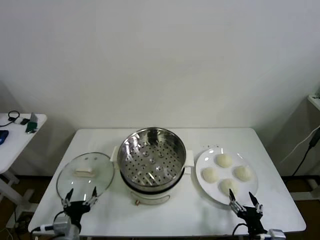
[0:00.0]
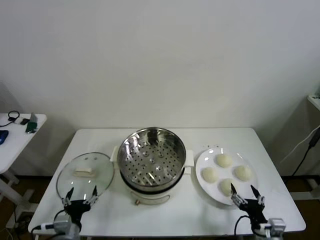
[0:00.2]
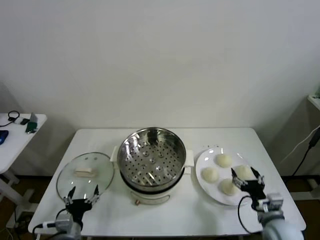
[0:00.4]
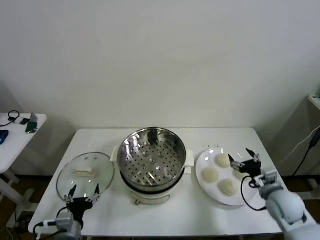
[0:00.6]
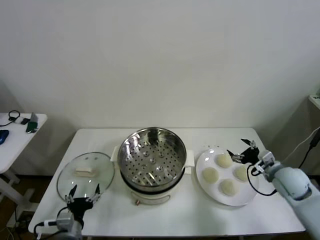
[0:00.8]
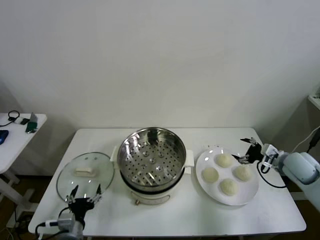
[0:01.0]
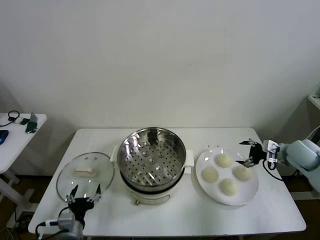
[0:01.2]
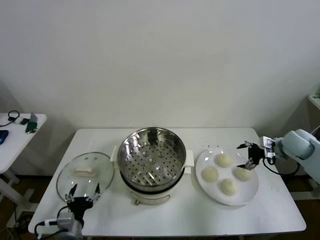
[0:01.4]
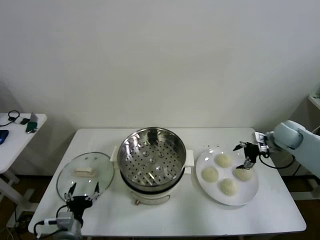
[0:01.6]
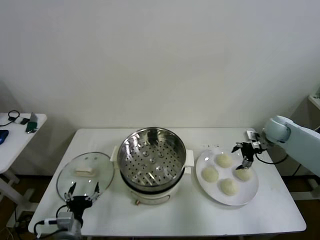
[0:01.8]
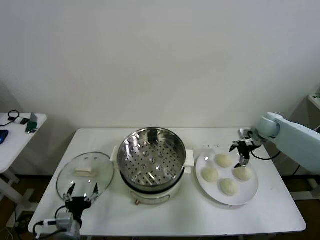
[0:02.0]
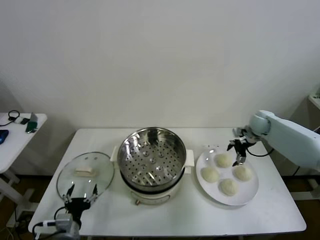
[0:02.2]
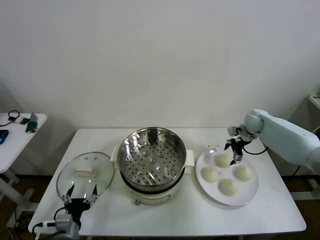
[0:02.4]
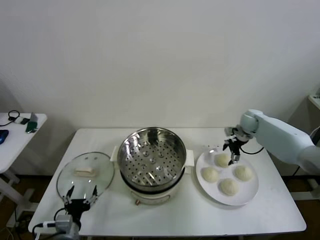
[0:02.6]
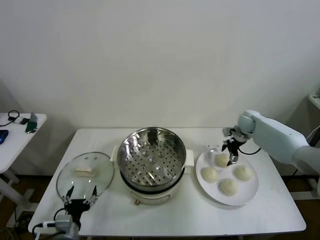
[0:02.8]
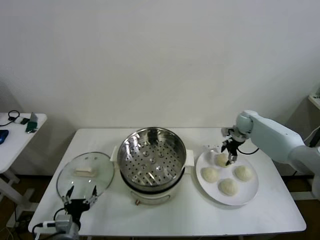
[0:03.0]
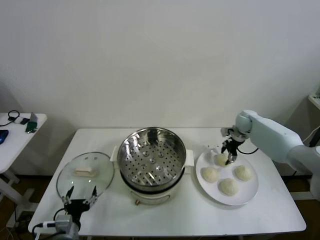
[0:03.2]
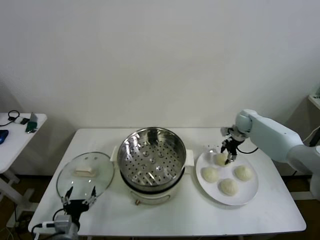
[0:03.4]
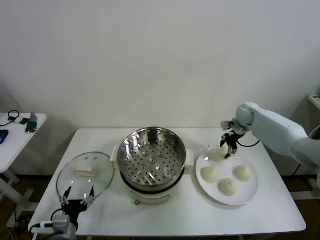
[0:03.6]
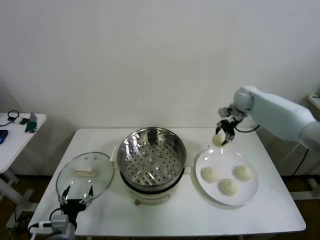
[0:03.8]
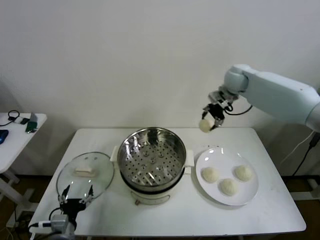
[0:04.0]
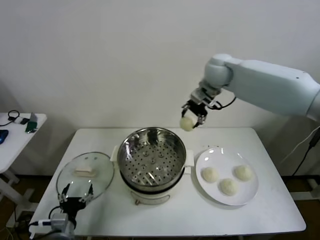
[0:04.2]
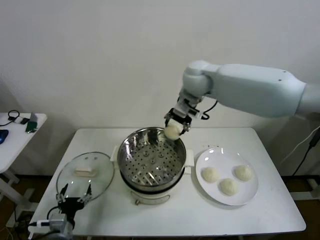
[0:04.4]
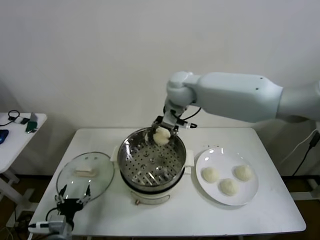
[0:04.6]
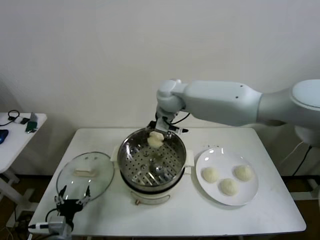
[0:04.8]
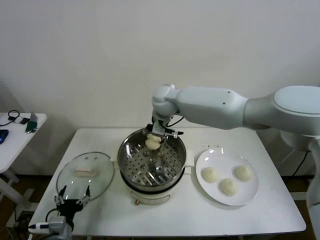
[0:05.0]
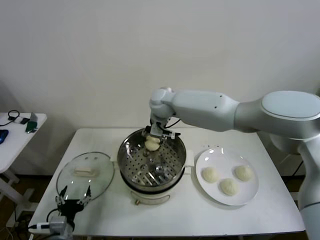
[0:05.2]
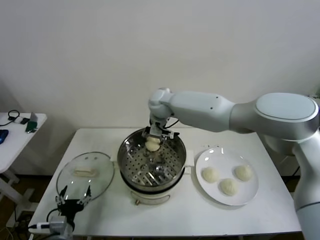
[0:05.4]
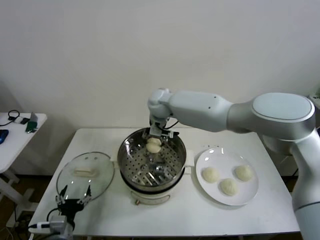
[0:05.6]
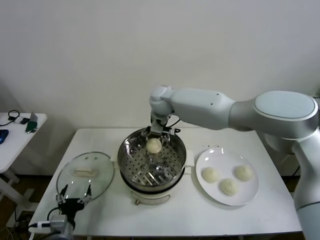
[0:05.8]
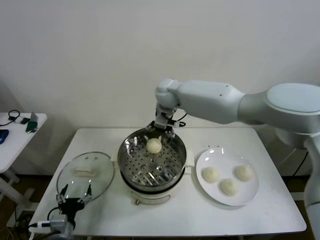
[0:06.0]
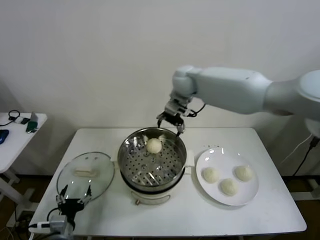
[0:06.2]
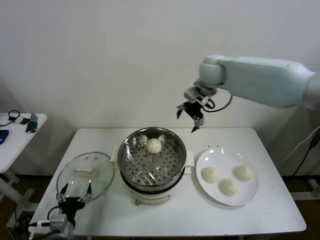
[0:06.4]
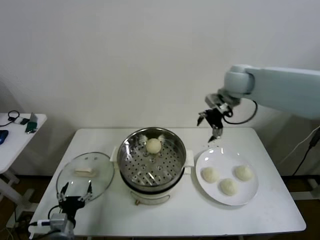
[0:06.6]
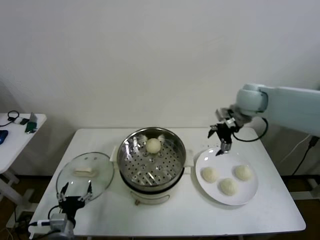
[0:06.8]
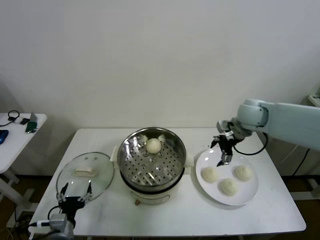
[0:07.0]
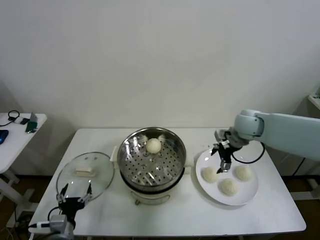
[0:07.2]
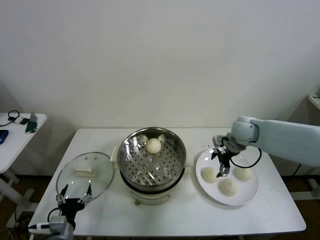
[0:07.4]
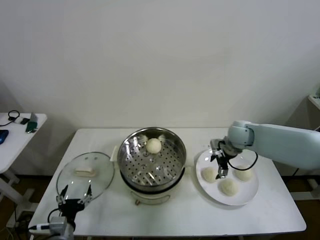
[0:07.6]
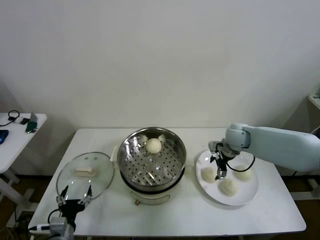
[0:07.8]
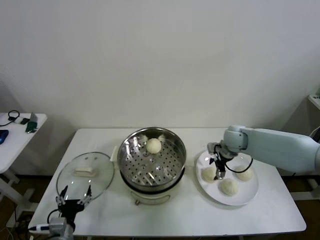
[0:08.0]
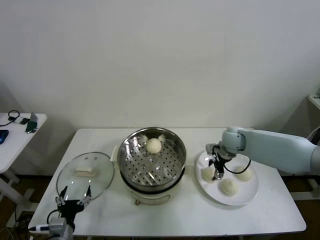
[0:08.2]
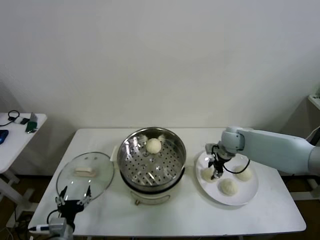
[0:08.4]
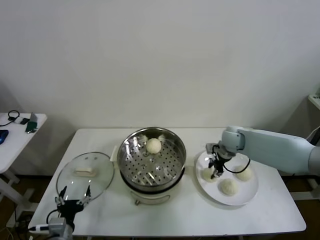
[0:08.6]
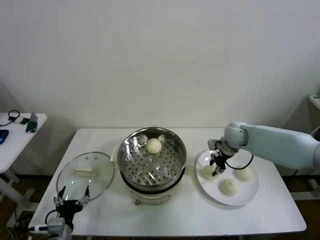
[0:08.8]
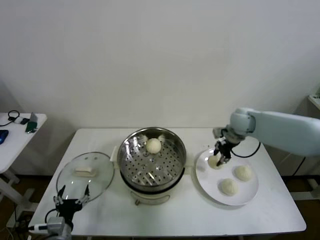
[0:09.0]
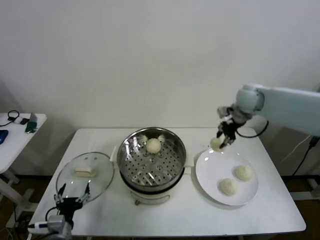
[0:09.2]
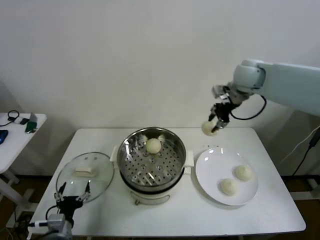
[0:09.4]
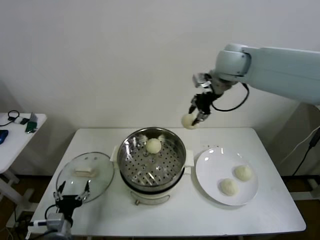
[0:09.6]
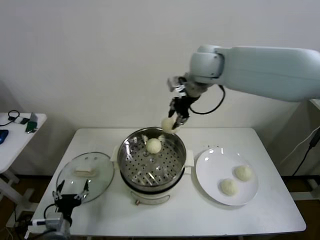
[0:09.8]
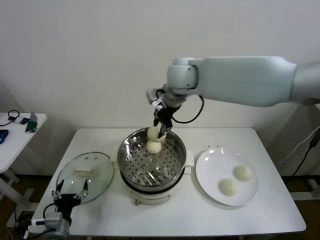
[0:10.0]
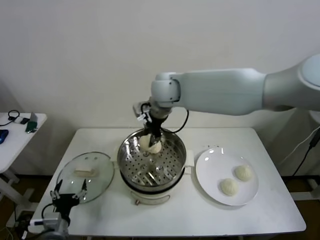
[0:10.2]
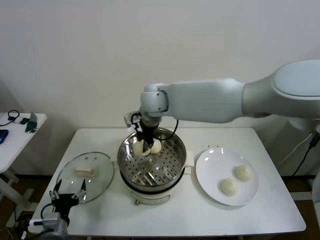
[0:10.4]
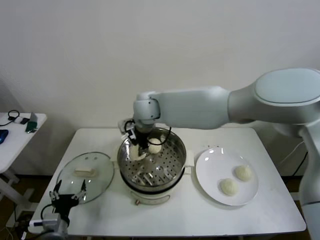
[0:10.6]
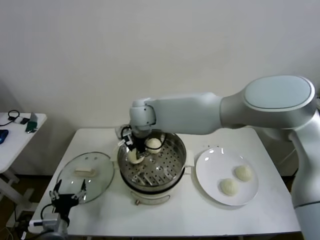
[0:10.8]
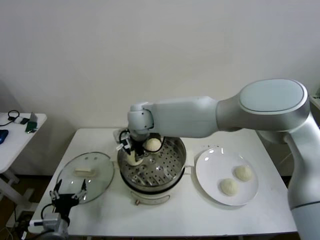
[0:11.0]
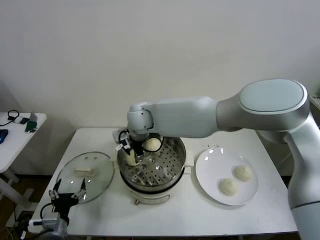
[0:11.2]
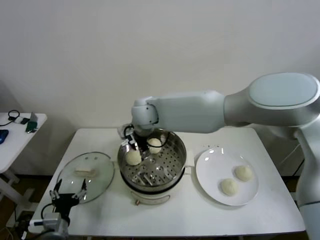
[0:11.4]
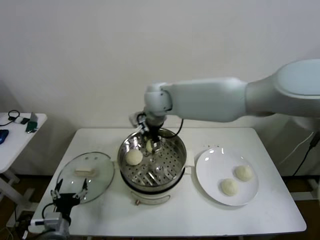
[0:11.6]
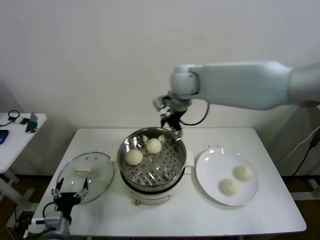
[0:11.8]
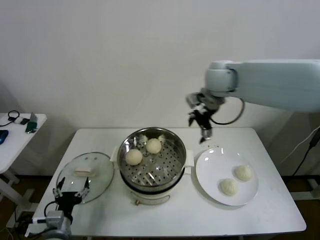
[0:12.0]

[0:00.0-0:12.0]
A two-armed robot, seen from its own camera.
Step, 0:00.0 to 0:03.2: Grasp the baozi in the plate with right gripper.
Step, 0:03.4 to 0:05.6: Place the baozi on the steamer with right gripper.
Step, 0:05.8 to 0:08.4: Grasp the baozi in the plate with right gripper.
Step, 0:08.8 to 0:11.2: Place the baozi on the steamer with right gripper.
0:01.6 to 0:03.0: The right gripper is displaced forward and to the left by about 15 cm.
0:03.0 to 0:04.4: The right gripper moves to the left and upward, approximately 35 cm.
0:04.4 to 0:06.0: The right gripper opens up.
0:06.0 to 0:07.6: The right gripper shifts about 30 cm to the right and downward.
0:07.6 to 0:09.0: The right gripper is displaced upward by approximately 5 cm, and closes.
0:09.0 to 0:10.4: The right gripper travels to the left by some 35 cm.
0:10.4 to 0:12.0: The right gripper moves to the right, roughly 20 cm, and opens its fingers.

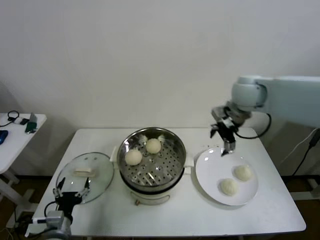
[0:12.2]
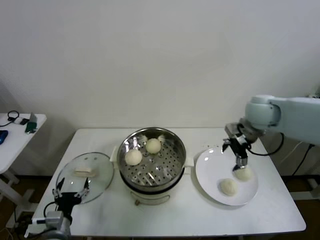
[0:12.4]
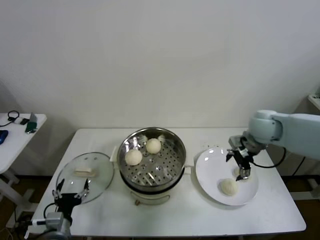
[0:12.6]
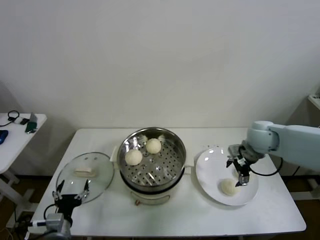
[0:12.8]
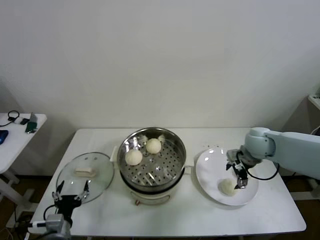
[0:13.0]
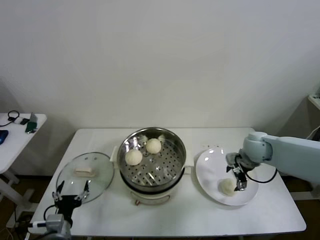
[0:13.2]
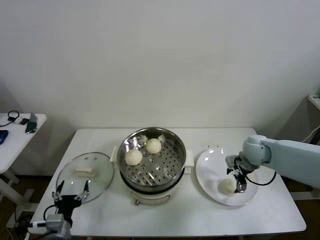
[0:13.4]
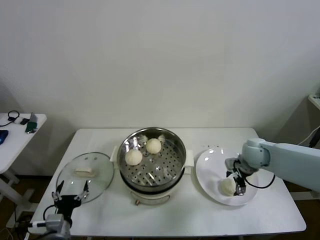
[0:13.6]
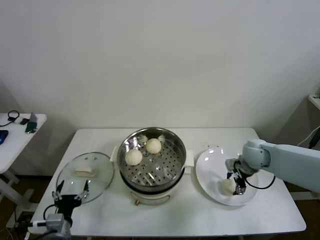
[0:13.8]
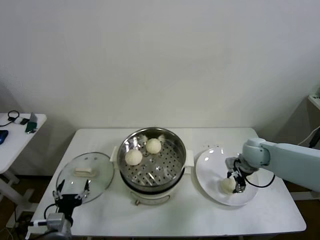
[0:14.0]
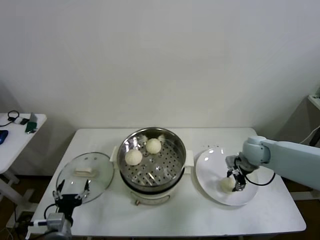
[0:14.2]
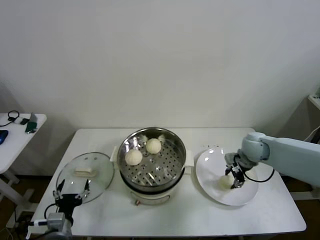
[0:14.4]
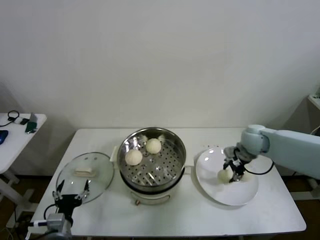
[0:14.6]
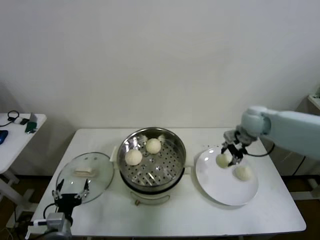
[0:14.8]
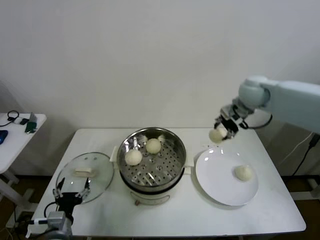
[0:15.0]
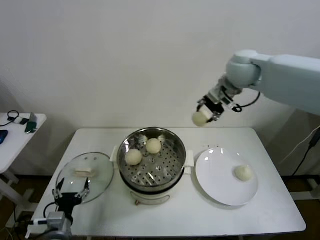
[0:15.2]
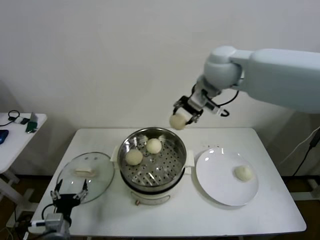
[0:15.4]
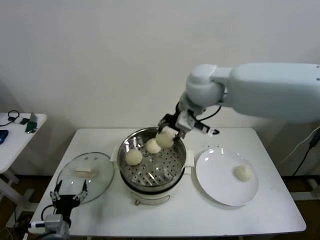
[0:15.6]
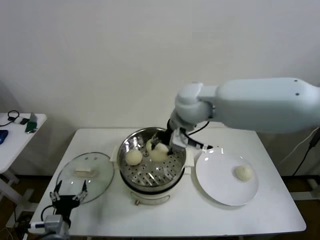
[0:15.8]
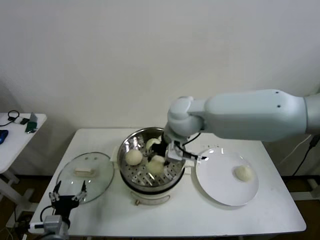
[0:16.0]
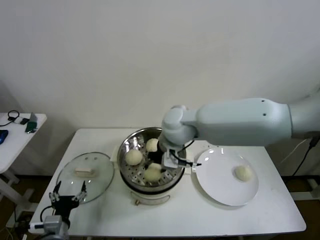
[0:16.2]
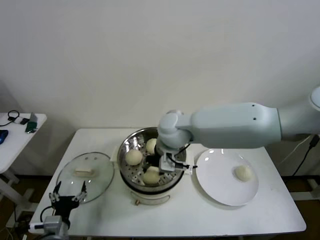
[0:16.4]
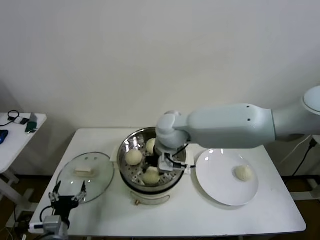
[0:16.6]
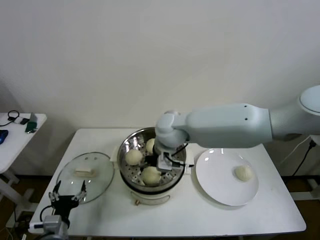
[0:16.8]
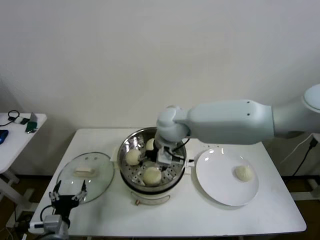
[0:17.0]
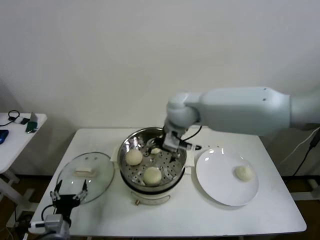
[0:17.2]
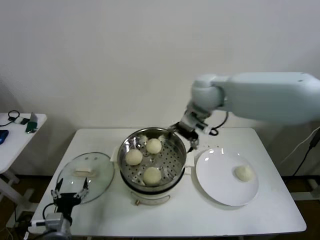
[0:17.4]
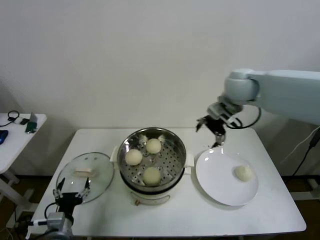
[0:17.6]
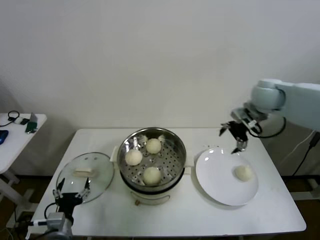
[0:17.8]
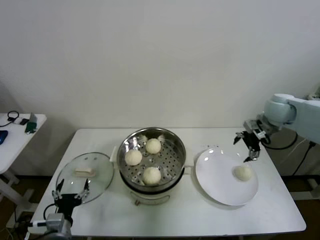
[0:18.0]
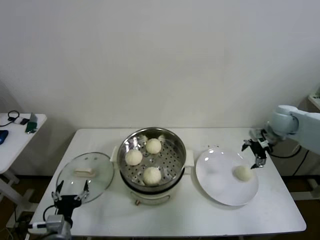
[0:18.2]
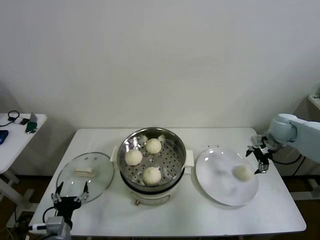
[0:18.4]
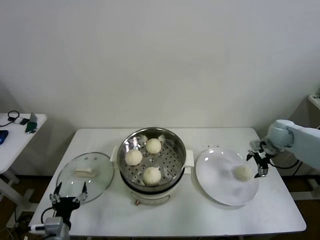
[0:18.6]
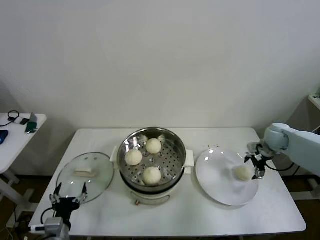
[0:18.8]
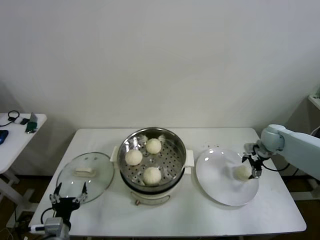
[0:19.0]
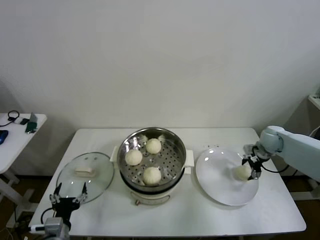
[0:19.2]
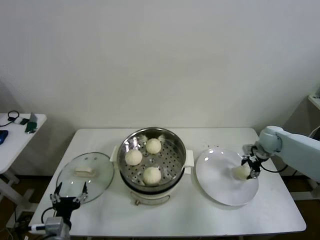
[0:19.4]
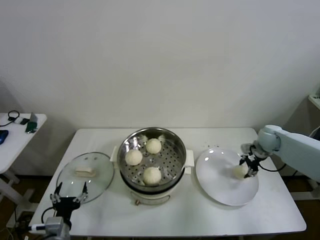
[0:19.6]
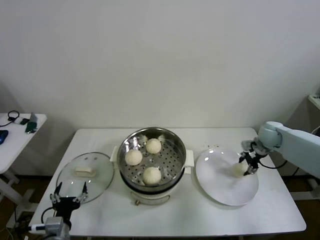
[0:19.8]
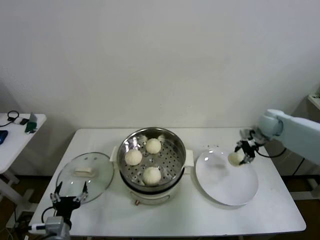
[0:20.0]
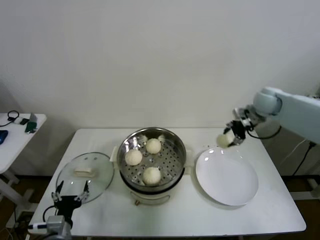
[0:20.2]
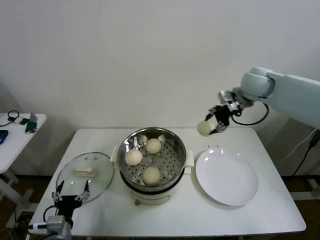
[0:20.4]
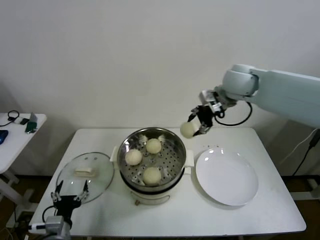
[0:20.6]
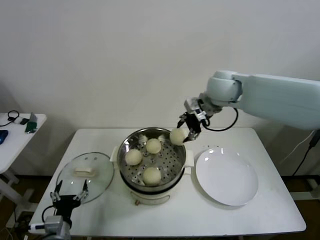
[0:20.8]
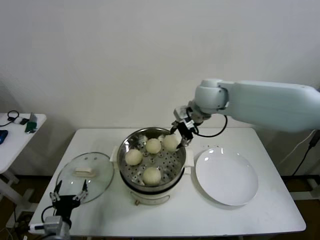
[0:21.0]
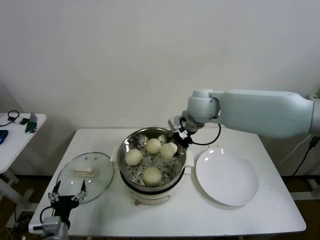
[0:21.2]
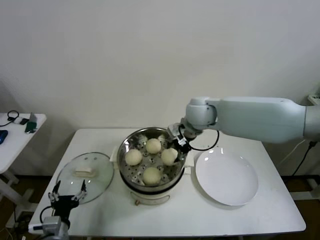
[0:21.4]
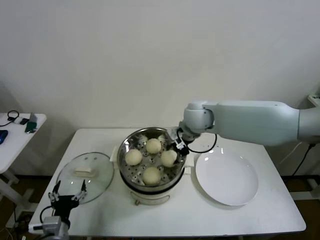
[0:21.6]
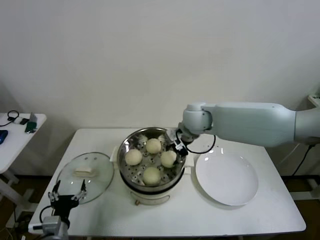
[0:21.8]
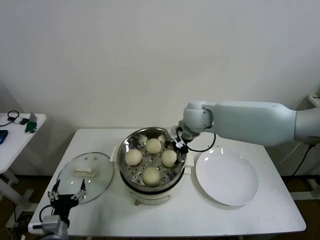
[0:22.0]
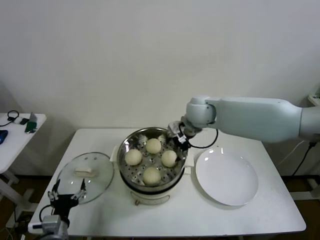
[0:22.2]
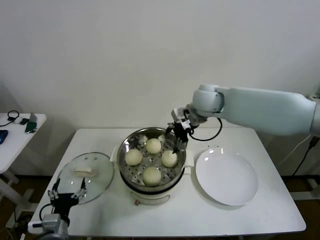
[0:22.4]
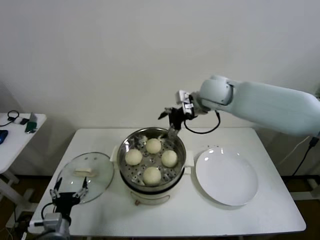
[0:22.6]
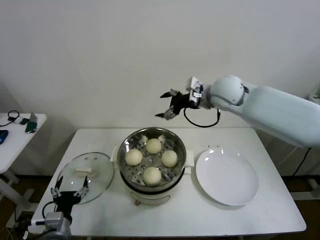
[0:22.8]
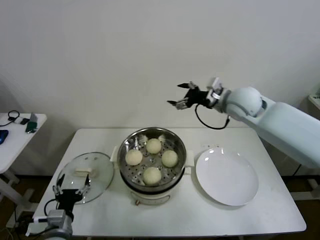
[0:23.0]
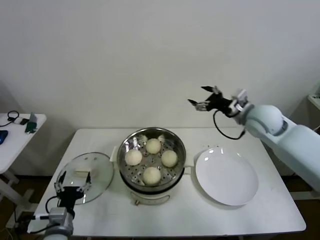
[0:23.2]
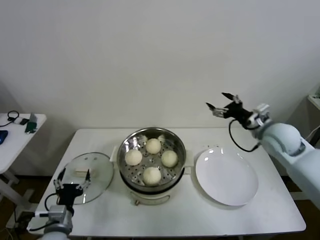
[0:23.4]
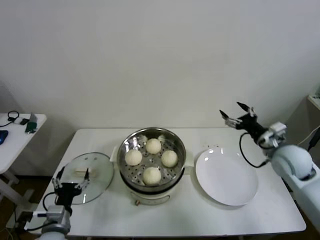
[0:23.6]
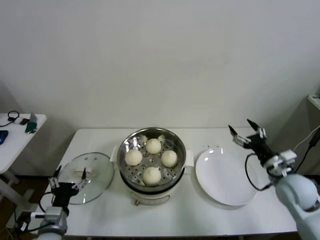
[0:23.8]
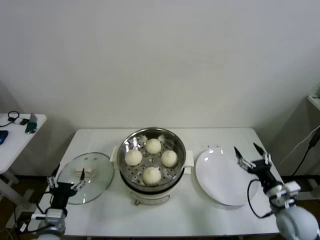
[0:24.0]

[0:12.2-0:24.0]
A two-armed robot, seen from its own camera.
Step, 0:12.2 to 0:14.0: Grasp the baozi in the plate with right gripper.
Step, 0:14.2 to 0:16.8: Place the baozi on the steamer with right gripper.
Step, 0:17.0 to 0:19.4: Grasp the baozi in the plate with right gripper.
Step, 0:19.8 to 0:22.0: Place the baozi on the steamer with right gripper.
0:12.2 to 0:13.6: The right gripper goes about 20 cm downward.
0:13.6 to 0:15.2: The right gripper moves upward and to the left, roughly 30 cm, and closes its fingers.
0:15.2 to 0:16.6: The right gripper heads to the left, downward and backward, covering roughly 25 cm.
0:16.6 to 0:18.2: The right gripper moves to the right, some 40 cm, and opens.
0:18.2 to 0:19.6: The right gripper is displaced downward by approximately 10 cm, and closes.
0:19.6 to 0:21.0: The right gripper travels to the left and upward by approximately 35 cm.
0:21.0 to 0:22.6: The right gripper travels downward and back again, approximately 10 cm each way, and opens up.
0:22.6 to 0:24.0: The right gripper heads downward, backward and to the right, covering about 40 cm.
